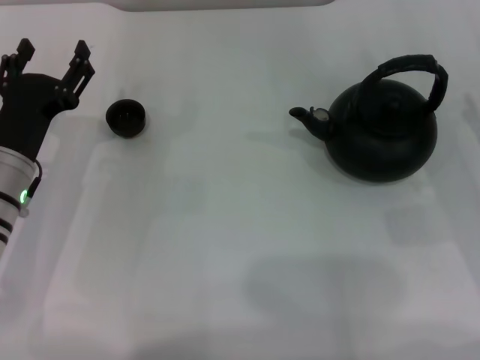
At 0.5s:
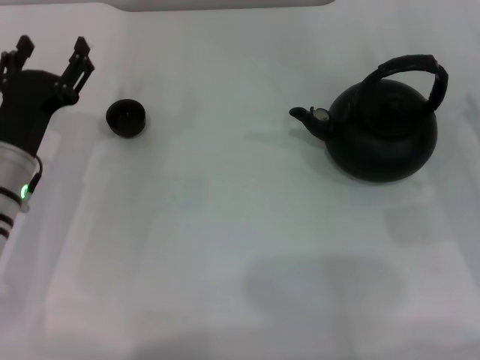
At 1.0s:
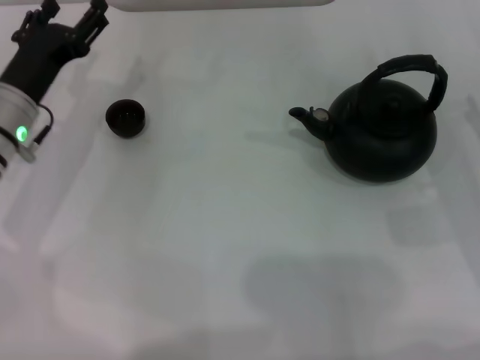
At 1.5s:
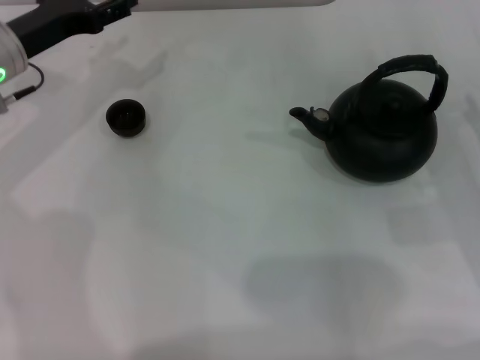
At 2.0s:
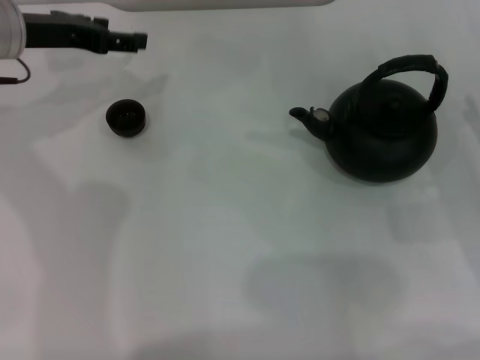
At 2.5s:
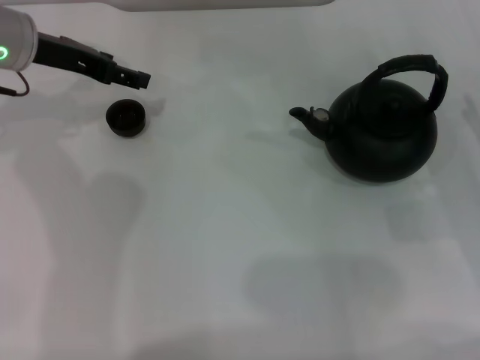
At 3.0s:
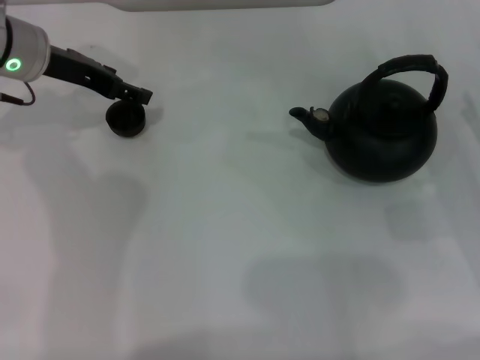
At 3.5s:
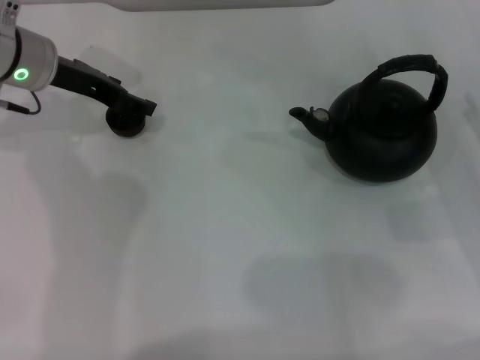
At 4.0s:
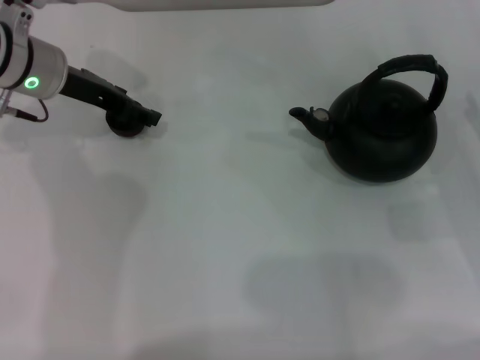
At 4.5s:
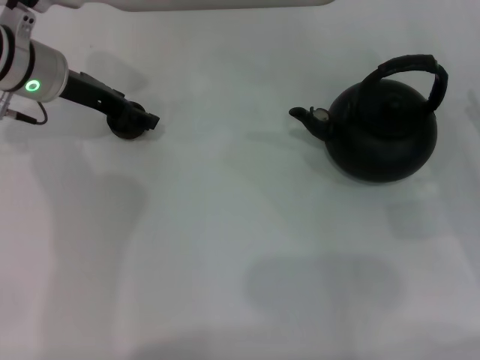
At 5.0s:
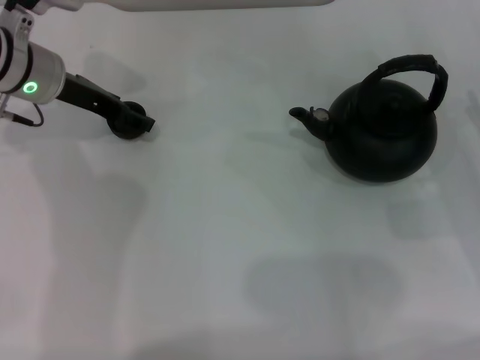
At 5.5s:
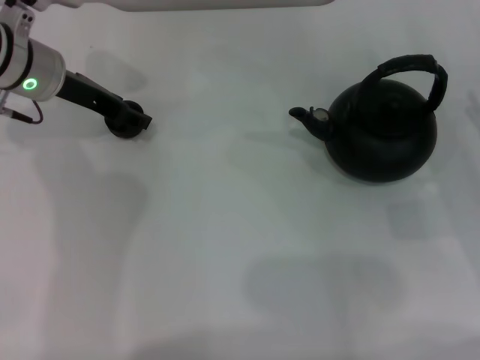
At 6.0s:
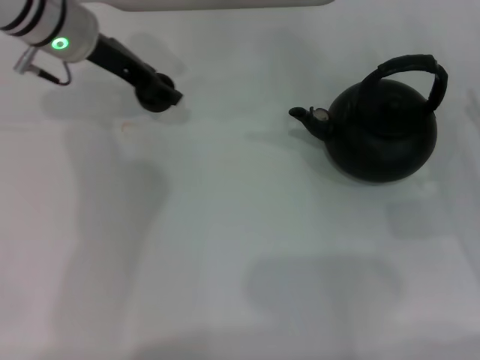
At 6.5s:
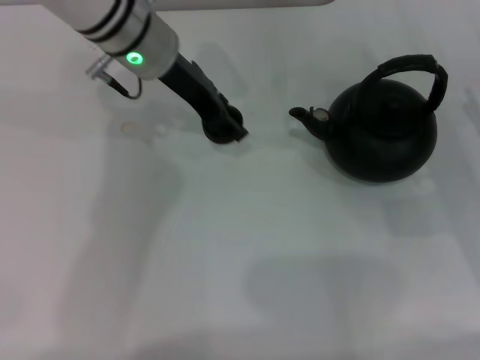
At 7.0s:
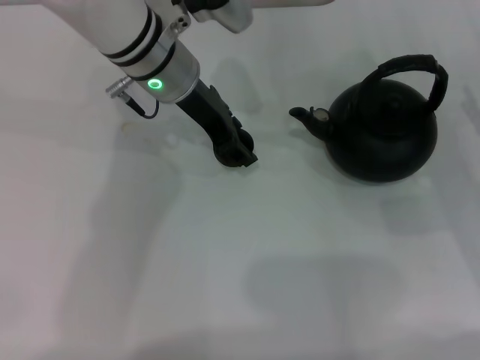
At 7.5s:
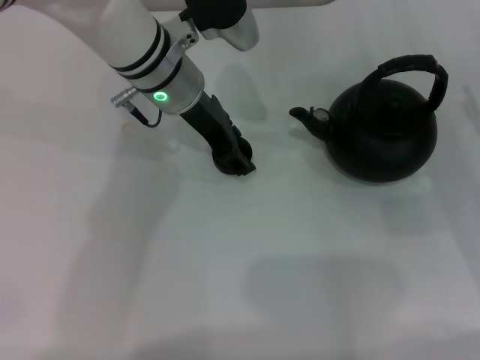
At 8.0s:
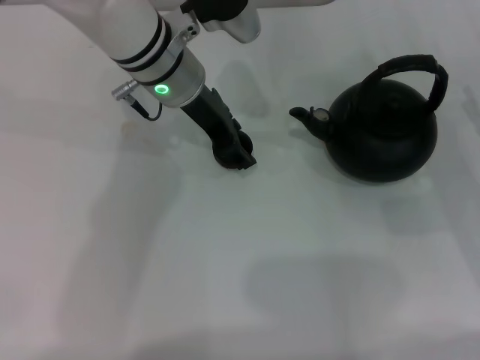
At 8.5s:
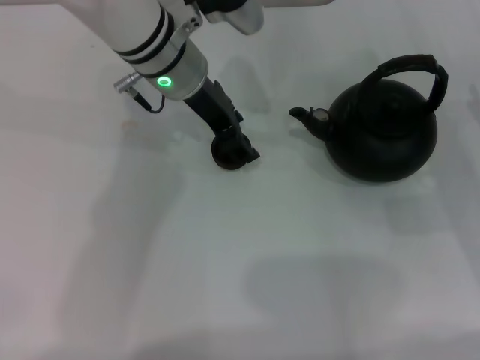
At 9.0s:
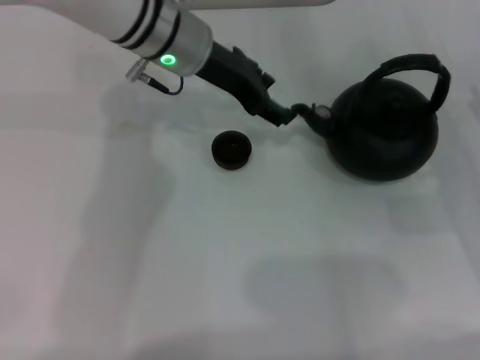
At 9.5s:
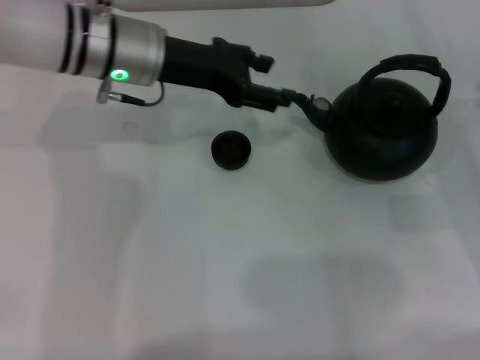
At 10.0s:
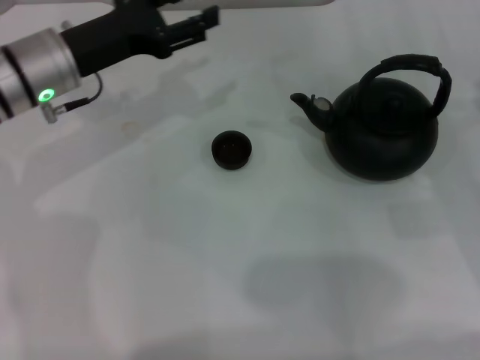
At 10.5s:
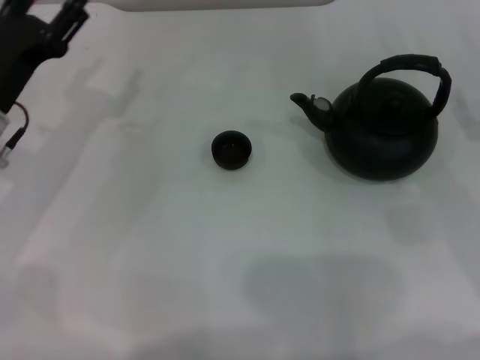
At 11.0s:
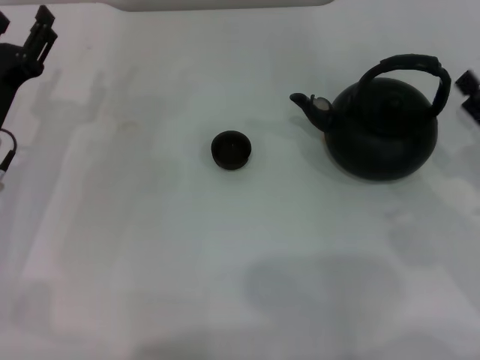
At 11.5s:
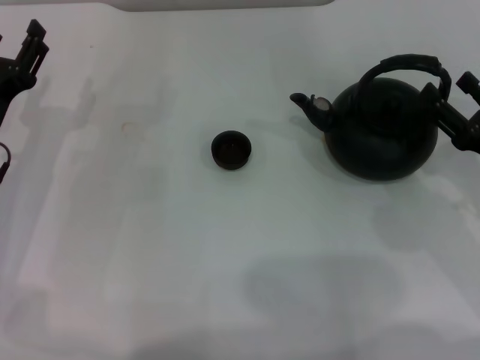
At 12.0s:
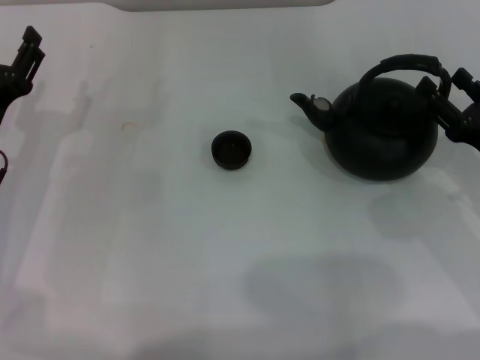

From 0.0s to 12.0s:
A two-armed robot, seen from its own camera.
Task of the whole recording: Grasp the handle of the teapot with one hand and pour tea into the teacup.
Step, from 0.0s to 5.5s: Pick up the teacup with the left gripper.
Step, from 6.0s to 9.5s: Place the teacup in the center of view with the left gripper.
From 0.0s to 2.0s: The left gripper travels forward and upward by about 20 cm.
From 4.0s to 6.0s: The left gripper ends up roughly 5 cm from where it was, and closes its fingers.
From 6.0s to 8.0s: The left gripper is displaced to the right by roughly 10 cm.
From 8.0s to 10.0s: The left gripper is displaced to the left by some 15 cm.
From 10.0s to 12.0s: The right gripper moves some 5 cm. The left gripper shifts roughly 15 cm backward, downward and to the left.

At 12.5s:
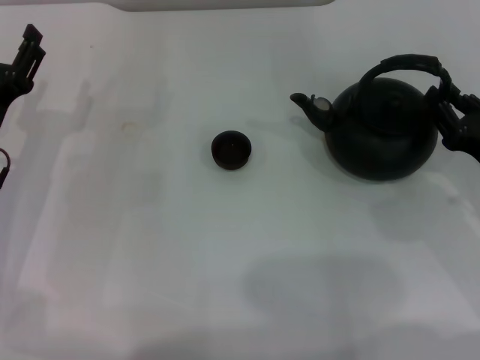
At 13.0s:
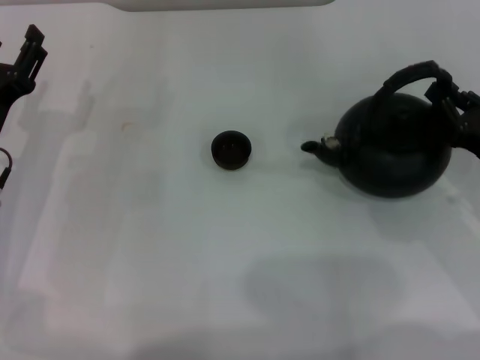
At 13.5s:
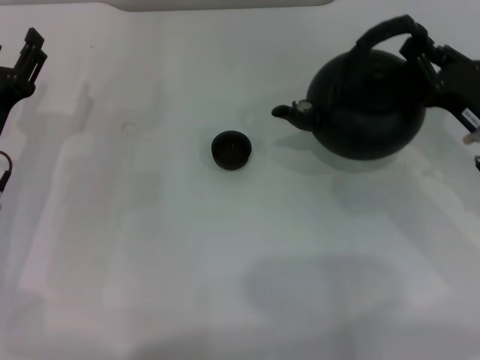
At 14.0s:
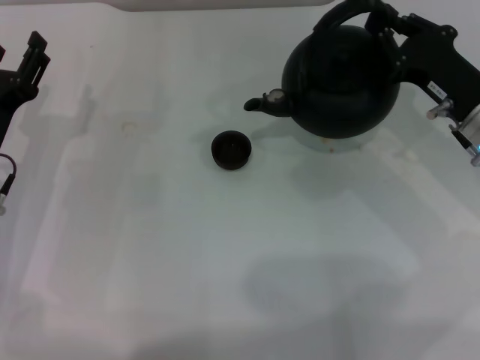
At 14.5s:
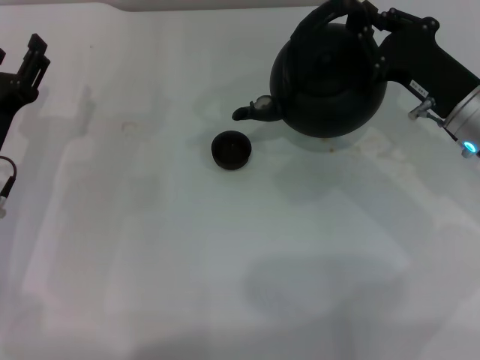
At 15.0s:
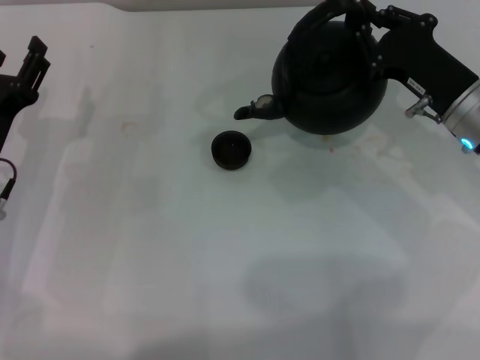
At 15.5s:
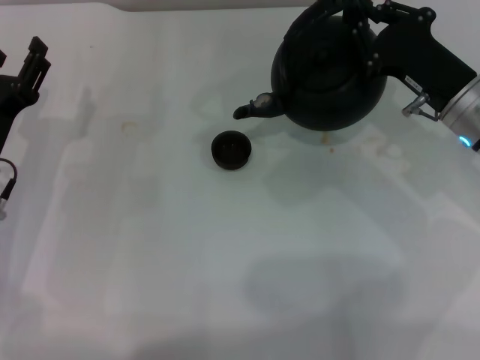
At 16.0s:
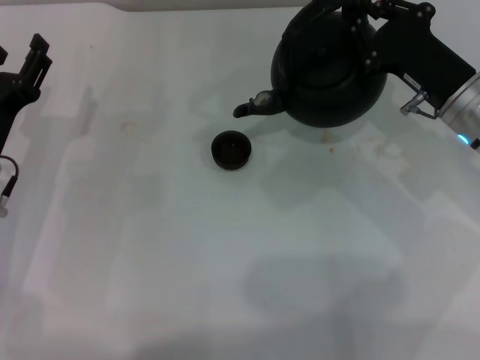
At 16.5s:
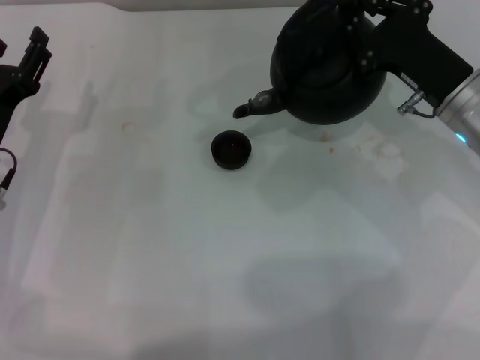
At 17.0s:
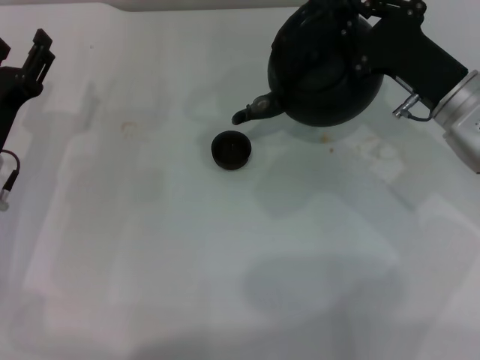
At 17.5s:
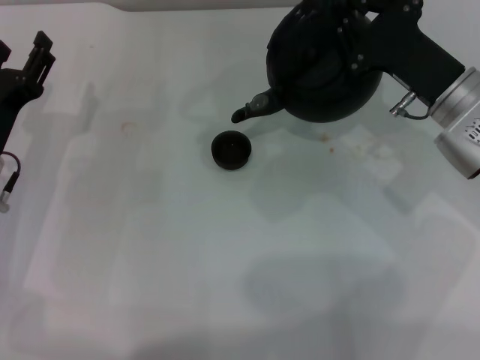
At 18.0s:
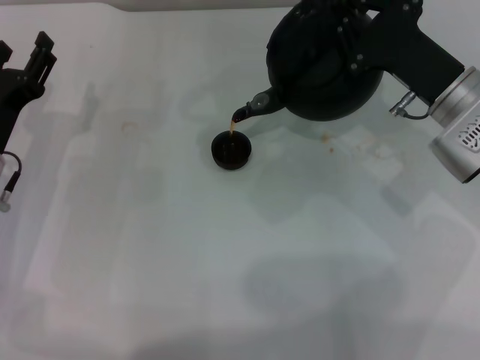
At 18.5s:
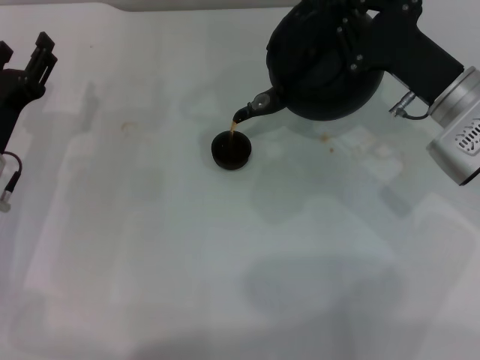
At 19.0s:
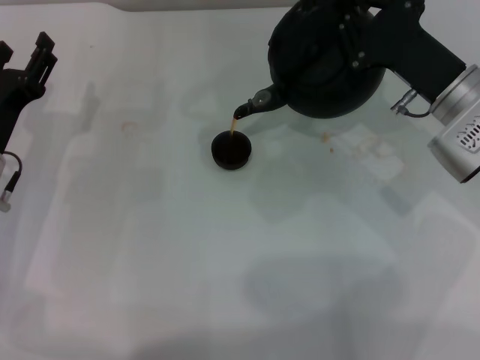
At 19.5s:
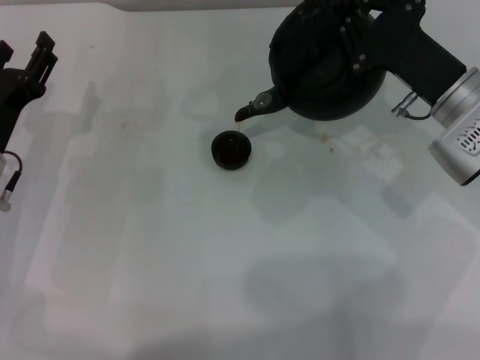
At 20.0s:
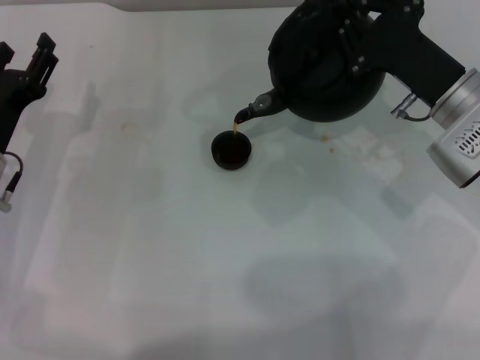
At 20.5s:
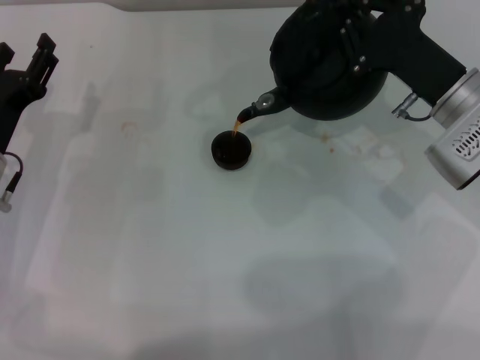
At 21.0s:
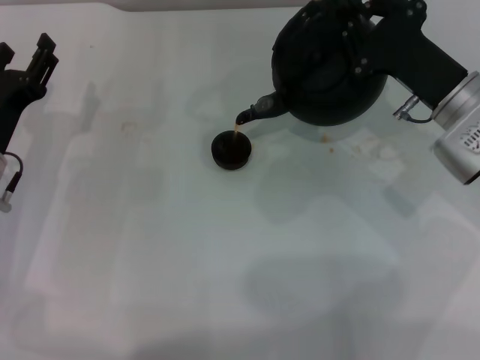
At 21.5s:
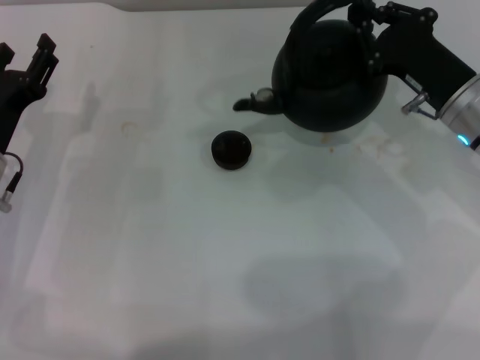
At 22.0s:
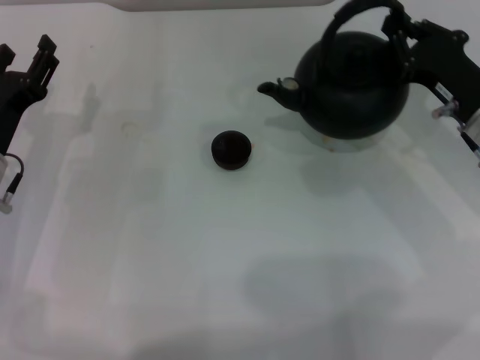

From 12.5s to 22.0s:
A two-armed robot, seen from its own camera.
Task of the whole recording: Grasp the handle of the teapot with one hand and pour tea into the teacup.
Step, from 14.0s to 21.0s: Pour tea into the teacup with the right gripper.
From 12.5s to 14.5s: The right gripper goes some 10 cm forward and to the left, and closes up.
From 14.5s to 16.5s: There are only small adjustments of the grippers.
From 16.5s to 18.0s: There are only small adjustments of the grippers.
From 18.0s to 20.0s: Both grippers stay put.

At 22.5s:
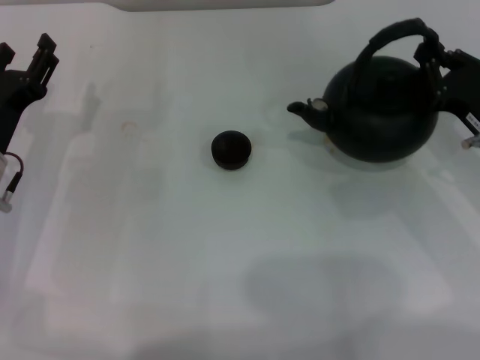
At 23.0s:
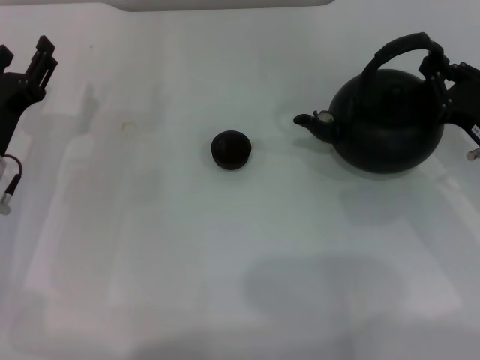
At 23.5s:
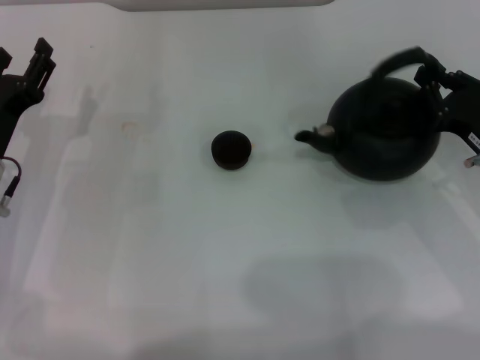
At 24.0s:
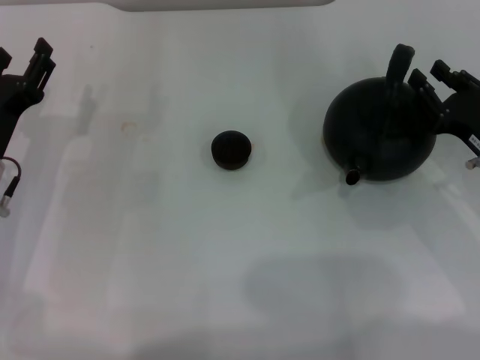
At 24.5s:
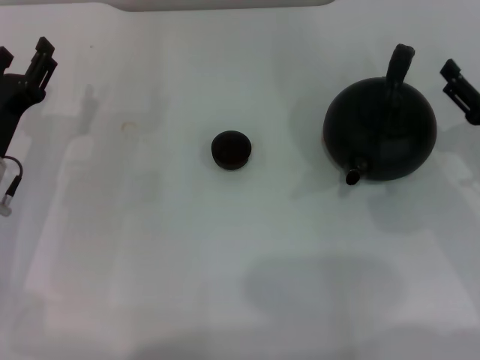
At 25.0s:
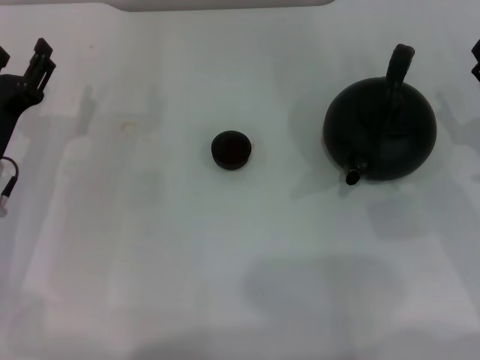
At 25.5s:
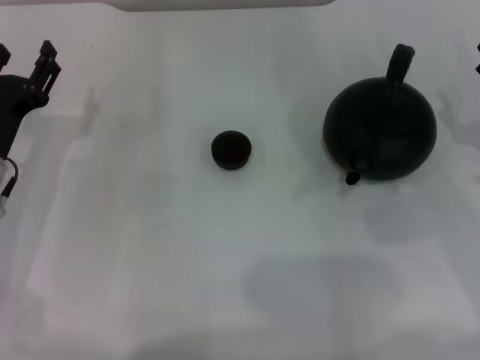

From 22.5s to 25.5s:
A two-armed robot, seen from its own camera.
Task of the whole recording: Grasp the handle of the teapot with one hand and pour tea into the teacup.
Step, from 22.5s to 24.0s: Put down the teapot with the right gripper.
From 22.5s to 24.0s: The grippers stay close to where they were, moving slightly.
From 24.0s to 25.5s: The right gripper opens up.
